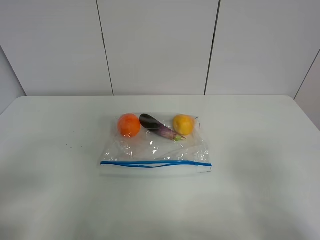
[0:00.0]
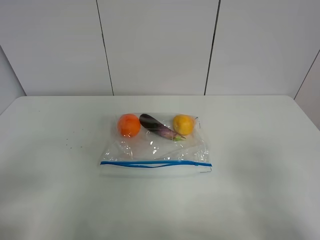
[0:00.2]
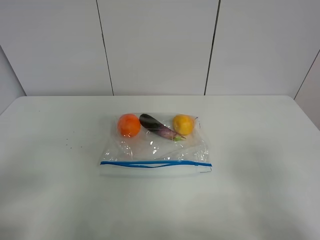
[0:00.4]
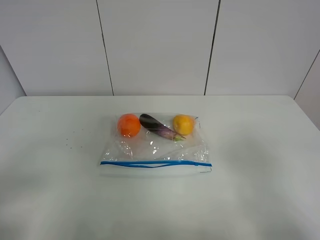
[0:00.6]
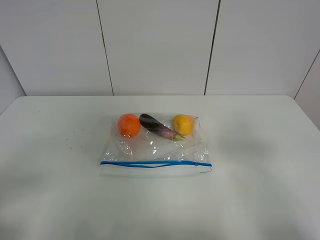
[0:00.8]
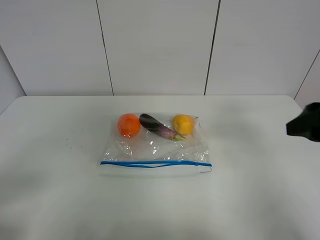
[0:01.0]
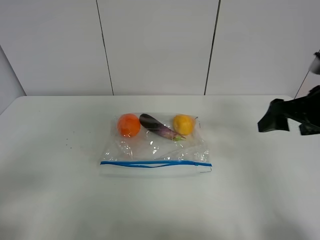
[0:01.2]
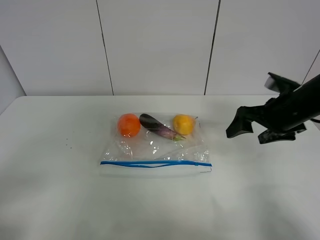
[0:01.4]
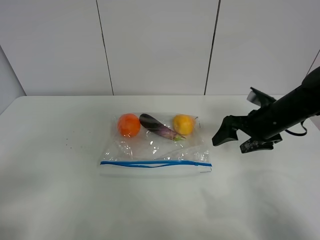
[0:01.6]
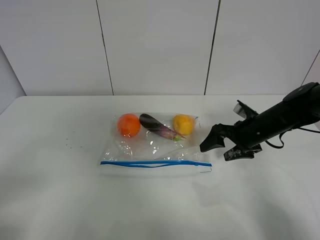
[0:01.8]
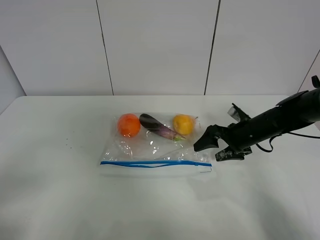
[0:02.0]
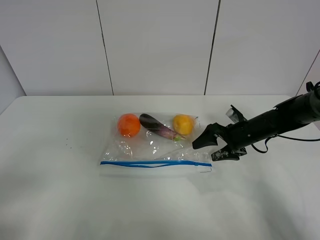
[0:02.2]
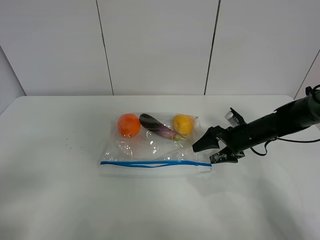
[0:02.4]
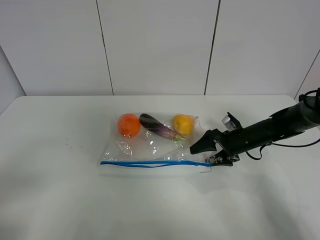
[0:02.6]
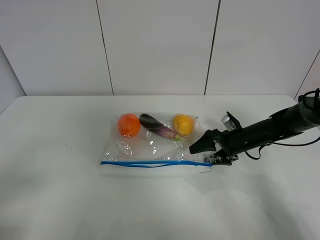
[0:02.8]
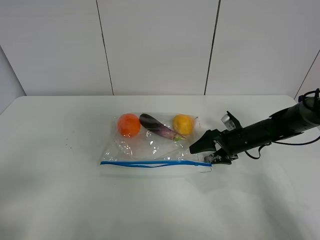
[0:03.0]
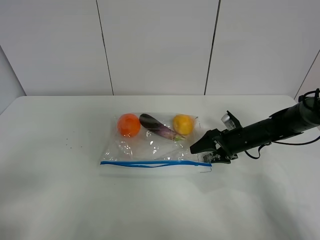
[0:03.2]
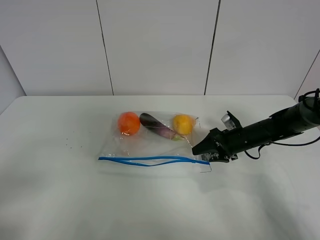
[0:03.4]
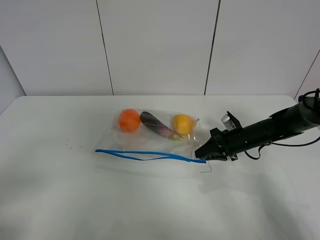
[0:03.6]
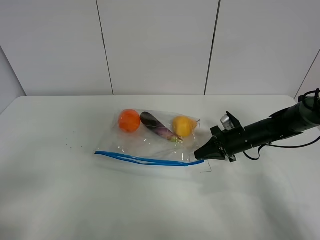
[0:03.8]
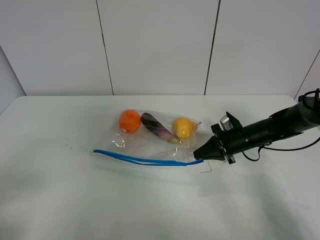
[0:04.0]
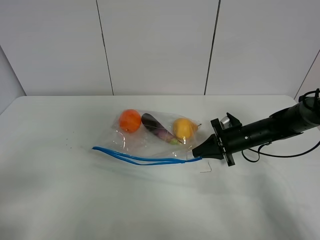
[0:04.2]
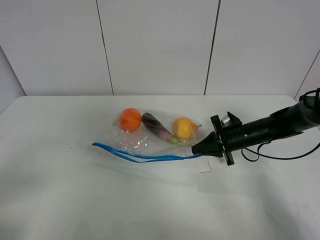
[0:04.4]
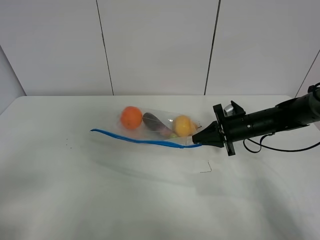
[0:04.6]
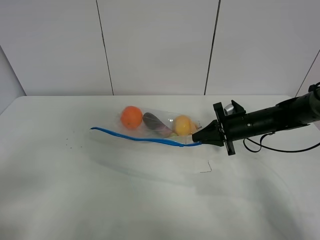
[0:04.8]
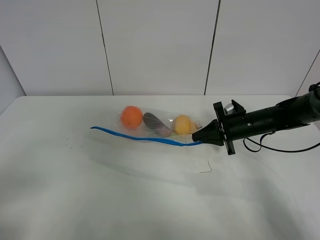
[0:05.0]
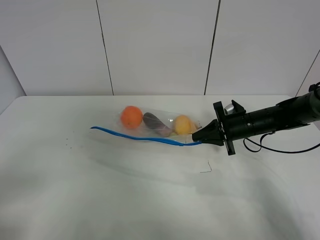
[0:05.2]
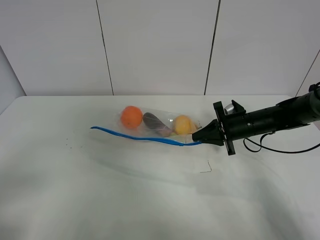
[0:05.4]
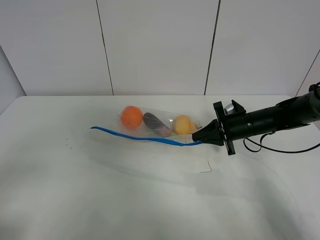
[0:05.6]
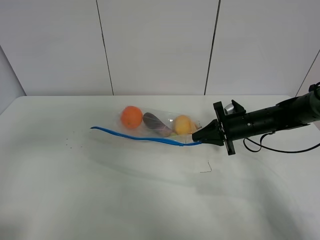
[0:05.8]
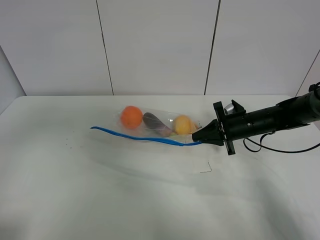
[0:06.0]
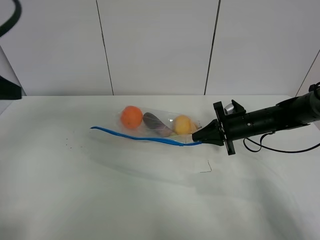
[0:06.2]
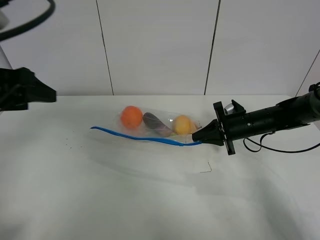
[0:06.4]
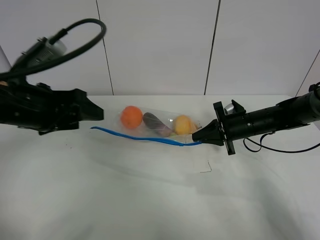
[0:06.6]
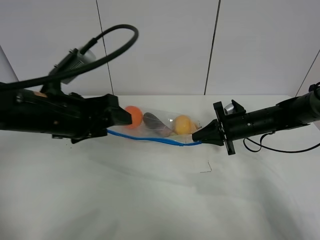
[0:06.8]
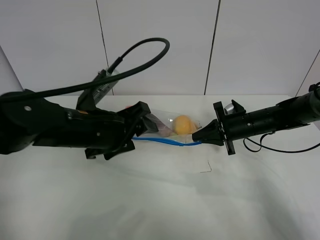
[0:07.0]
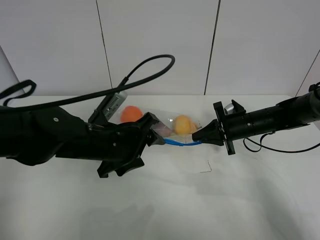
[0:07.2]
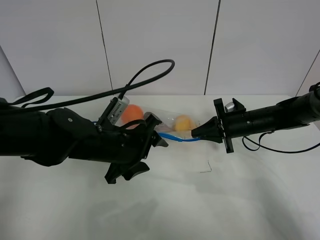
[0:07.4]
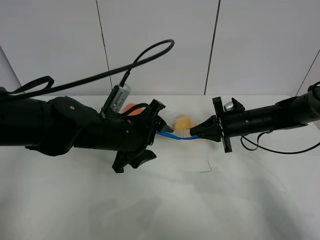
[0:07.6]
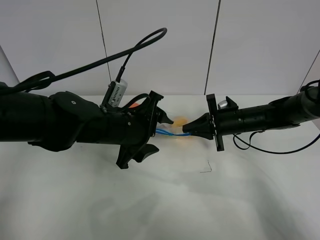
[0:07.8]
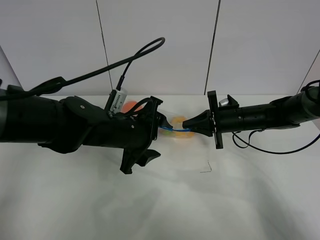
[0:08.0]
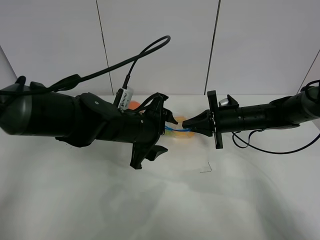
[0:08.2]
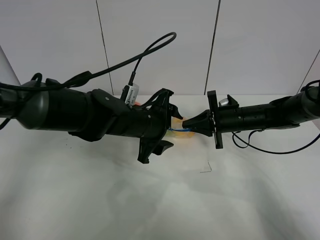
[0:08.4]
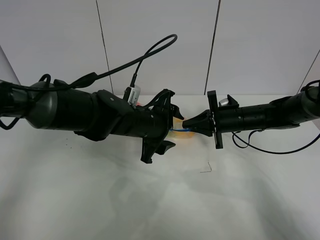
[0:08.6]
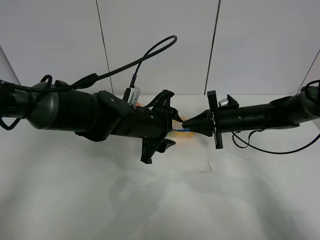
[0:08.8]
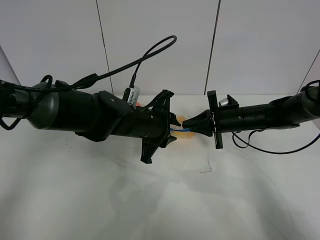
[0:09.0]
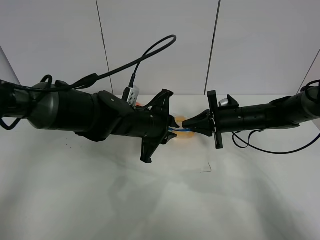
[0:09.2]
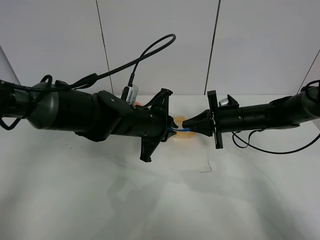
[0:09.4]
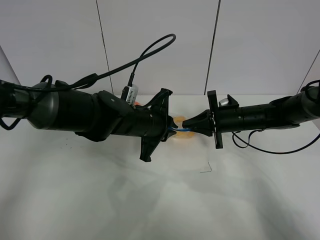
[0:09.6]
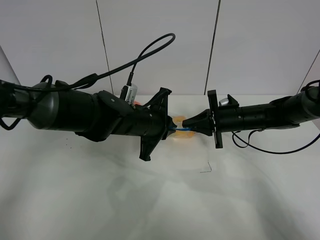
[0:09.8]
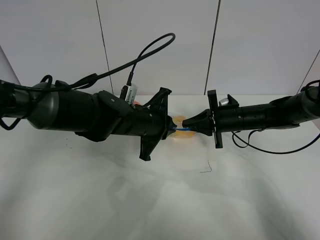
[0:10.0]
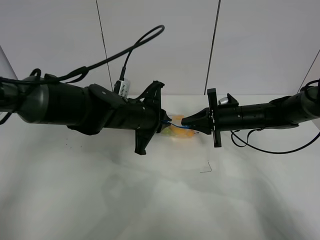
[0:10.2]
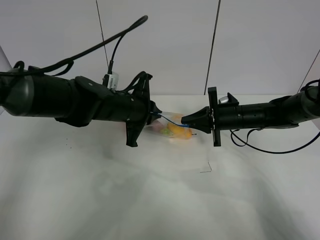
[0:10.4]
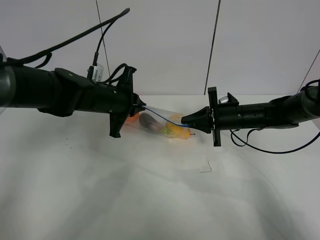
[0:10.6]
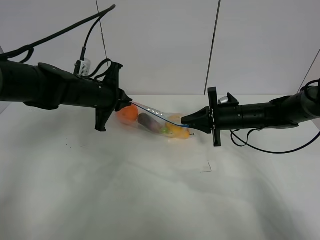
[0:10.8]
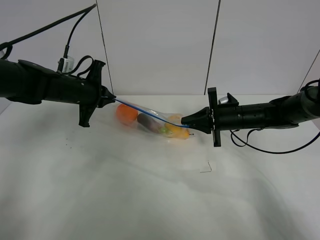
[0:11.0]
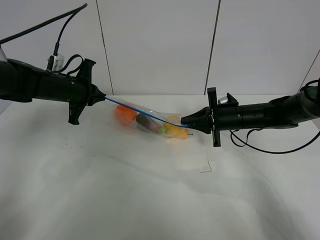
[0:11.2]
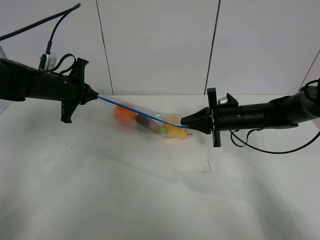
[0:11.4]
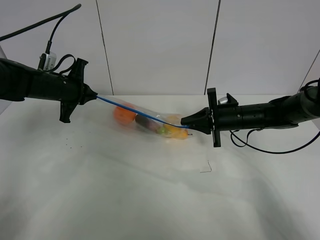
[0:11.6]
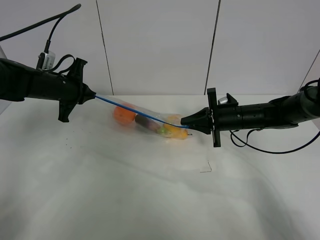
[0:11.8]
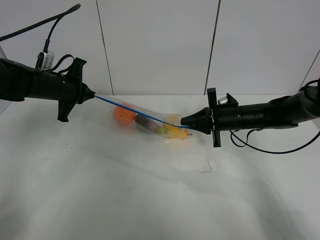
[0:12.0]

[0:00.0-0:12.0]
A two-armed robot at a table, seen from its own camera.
Step, 0:00.0 to 0:03.6: Grasp the fruit bag with right gripper.
Step, 0:03.8 to 0:05.2: Lift the fruit bag with your right gripper.
0:00.0 to 0:01.6: The right gripper heads forward, covering approximately 30 cm.
0:01.6 to 0:03.0: The right gripper travels downward by roughly 10 cm.
0:03.0 to 0:04.4: The right gripper closes its fingers.
0:04.4 to 0:06.0: The left gripper goes about 15 cm forward and upward.
0:06.0 to 0:07.6: The left gripper travels to the right, downward and forward by about 30 cm.
0:07.6 to 0:09.0: The left gripper changes place by about 5 cm, and closes.
0:09.0 to 0:10.4: The left gripper changes place by roughly 5 cm, and closes up.
0:10.4 to 0:12.0: The left gripper moves to the left, roughly 15 cm.

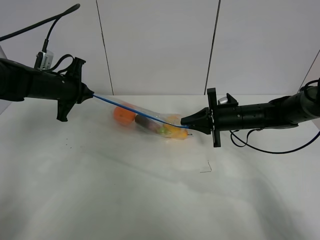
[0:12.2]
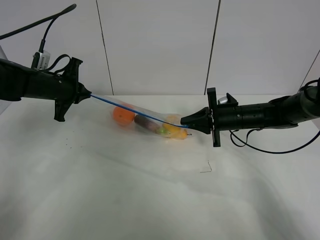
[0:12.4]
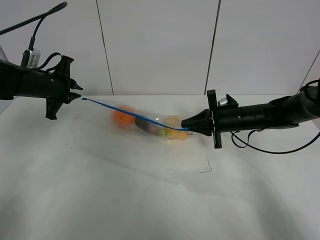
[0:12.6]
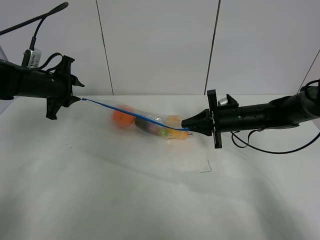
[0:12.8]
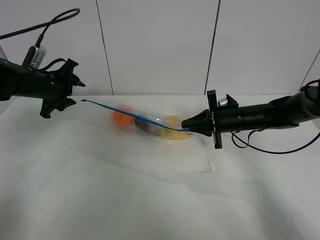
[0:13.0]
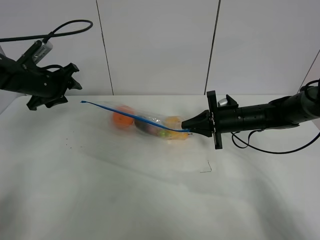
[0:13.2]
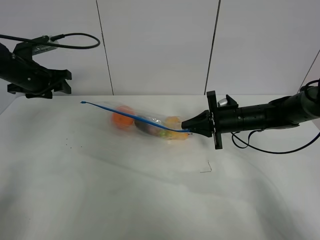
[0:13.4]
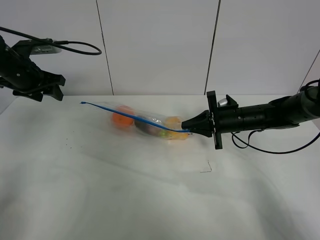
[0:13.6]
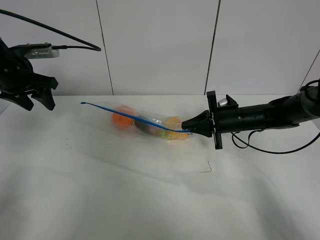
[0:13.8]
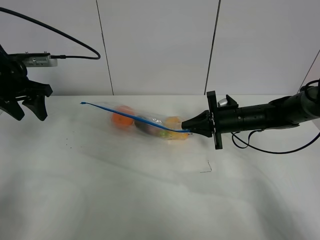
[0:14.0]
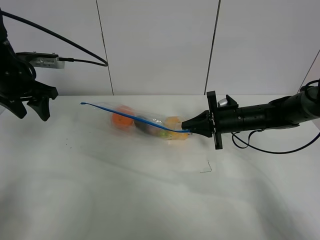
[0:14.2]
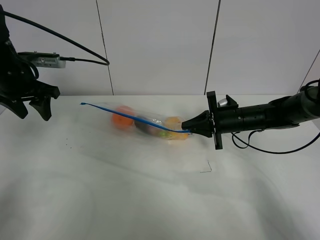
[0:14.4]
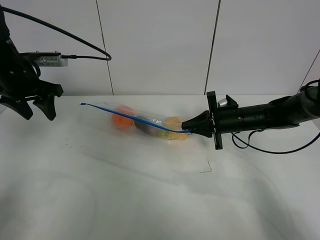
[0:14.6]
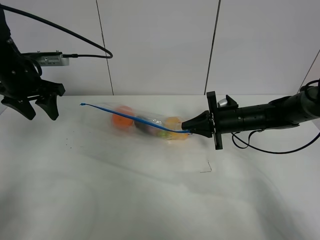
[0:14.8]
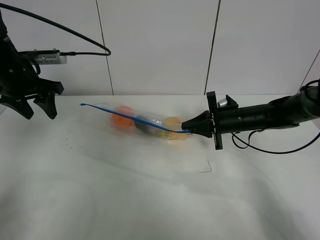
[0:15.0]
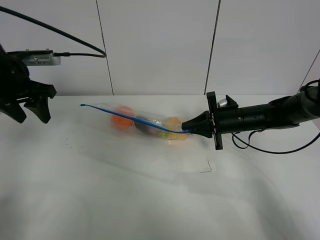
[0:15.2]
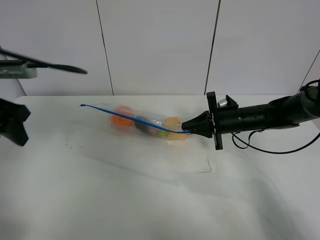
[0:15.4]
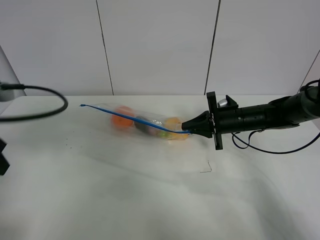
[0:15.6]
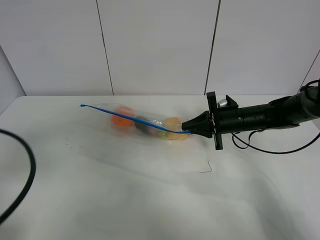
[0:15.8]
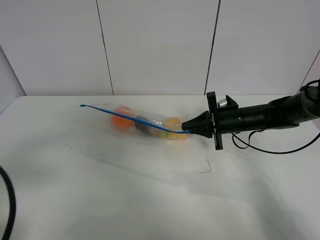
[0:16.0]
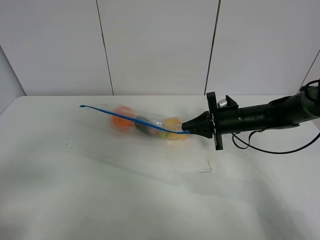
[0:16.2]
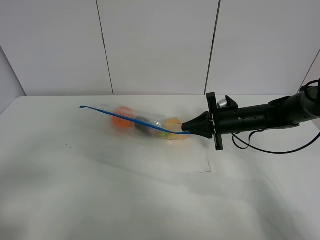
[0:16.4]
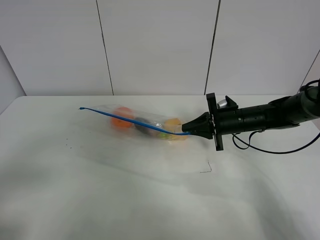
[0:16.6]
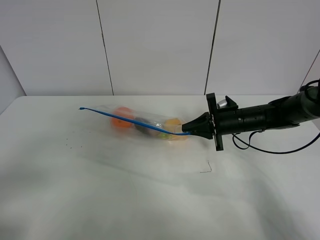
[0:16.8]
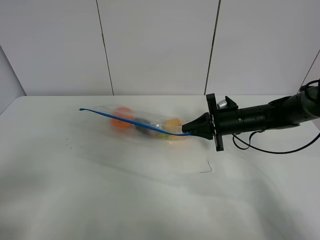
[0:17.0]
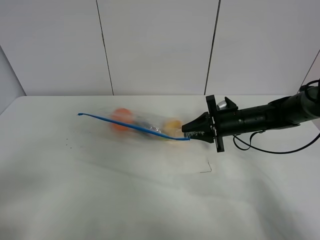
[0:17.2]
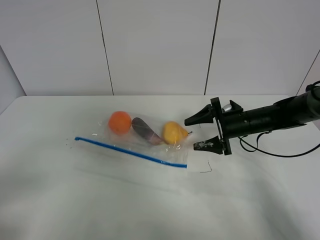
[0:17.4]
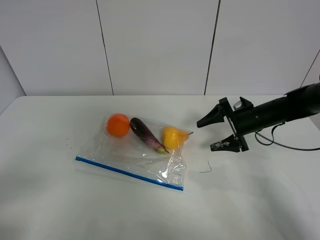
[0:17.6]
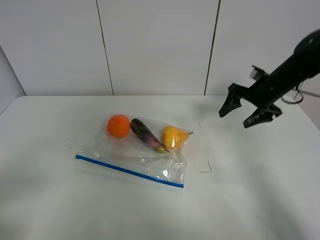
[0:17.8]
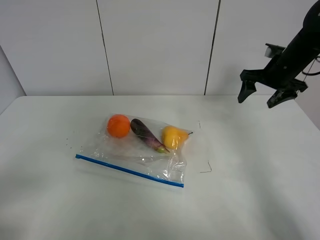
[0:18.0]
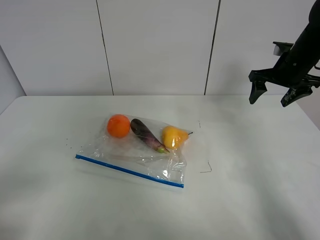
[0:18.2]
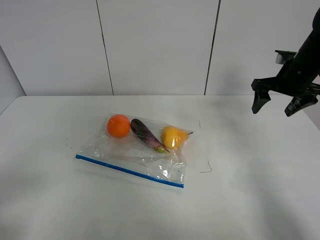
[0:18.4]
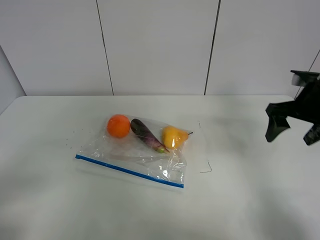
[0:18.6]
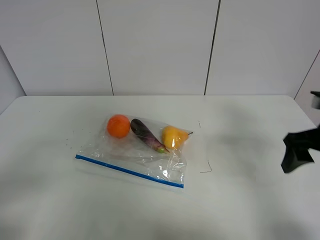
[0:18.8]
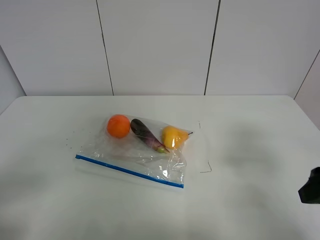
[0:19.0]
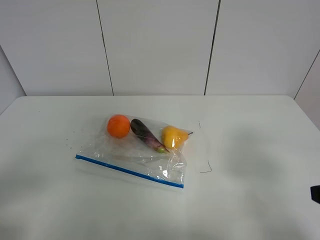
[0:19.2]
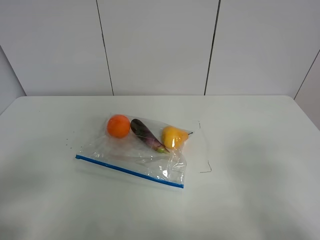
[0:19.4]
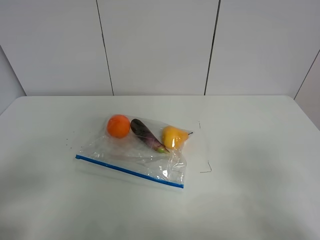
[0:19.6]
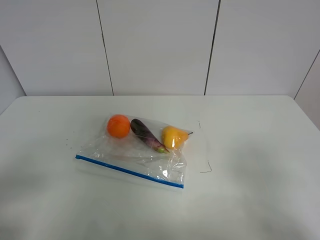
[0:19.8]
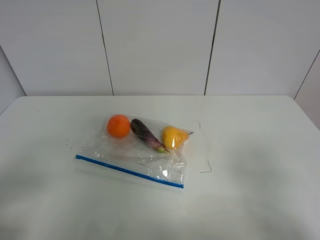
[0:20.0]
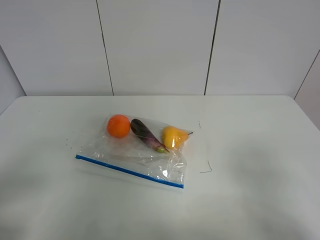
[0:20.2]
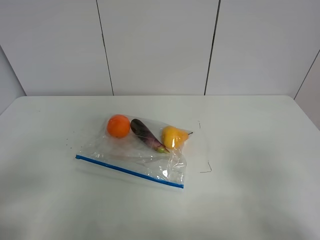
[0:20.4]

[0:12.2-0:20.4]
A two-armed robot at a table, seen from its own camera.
0:12.2 to 0:13.8: The left gripper is displaced upward and to the left by some 10 cm, and opens its fingers.
0:13.8 to 0:15.4: The left gripper shifts roughly 15 cm backward.
0:15.4 to 0:17.2: The left gripper shifts roughly 20 cm backward.
0:17.2 to 0:18.8: The right gripper goes approximately 20 cm backward, upward and to the right, and opens up.
0:18.8 to 0:20.4: The right gripper is displaced backward by about 20 cm.

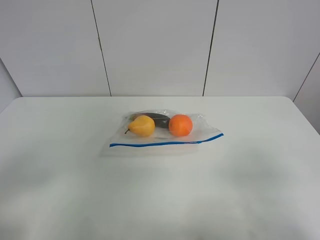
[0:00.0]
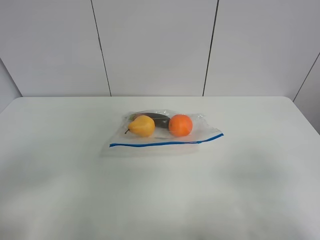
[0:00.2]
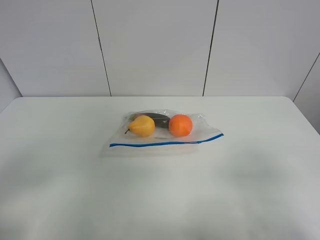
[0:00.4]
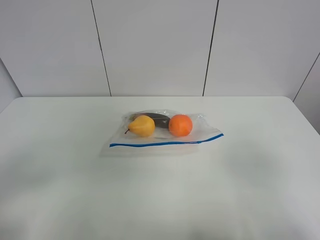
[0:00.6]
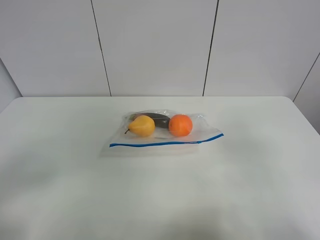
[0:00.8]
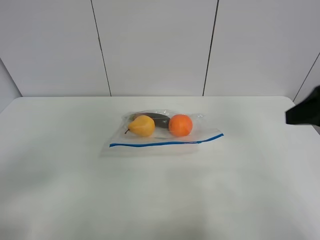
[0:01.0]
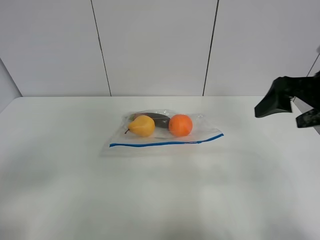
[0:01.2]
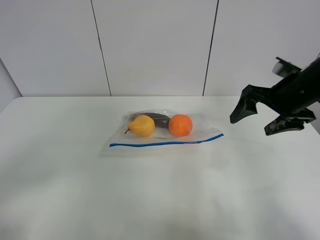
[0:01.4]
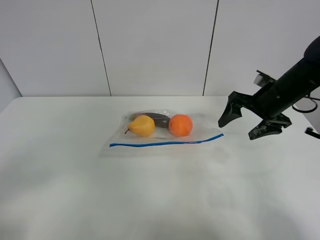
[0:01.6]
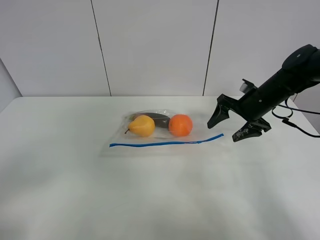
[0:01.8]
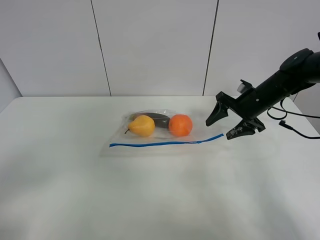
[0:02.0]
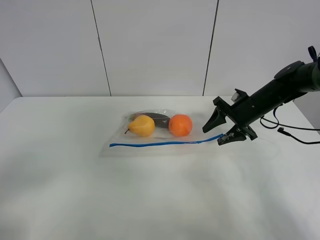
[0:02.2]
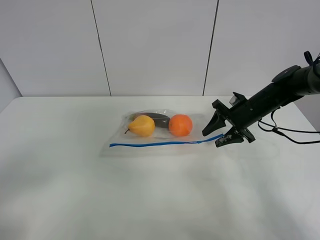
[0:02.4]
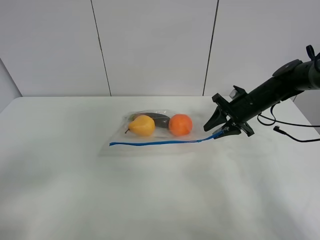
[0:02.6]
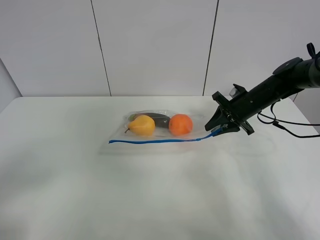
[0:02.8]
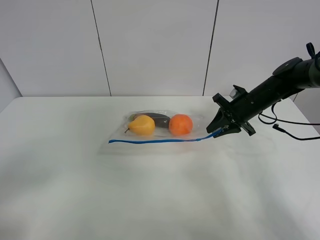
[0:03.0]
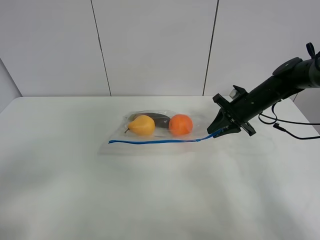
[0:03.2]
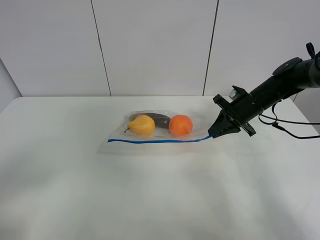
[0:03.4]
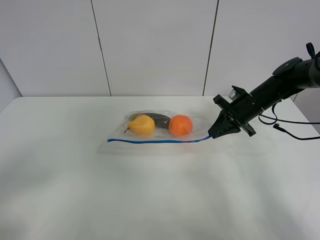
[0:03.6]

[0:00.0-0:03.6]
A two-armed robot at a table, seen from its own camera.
0:00.0 to 0:01.8: The right gripper heads forward, covering approximately 40 cm.
0:01.8 to 0:03.6: The right gripper closes its fingers.
